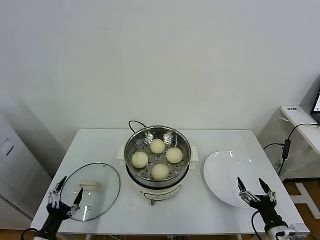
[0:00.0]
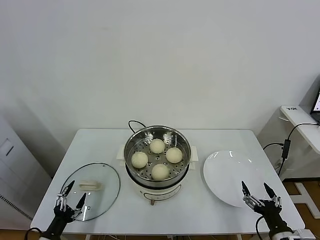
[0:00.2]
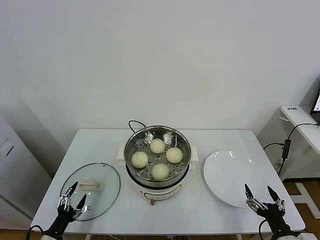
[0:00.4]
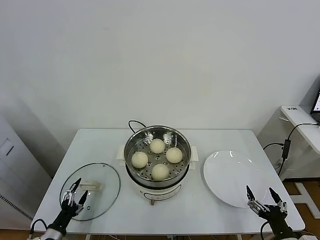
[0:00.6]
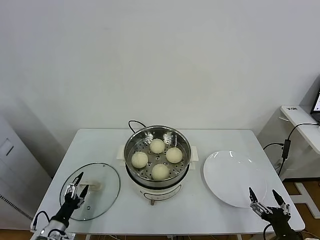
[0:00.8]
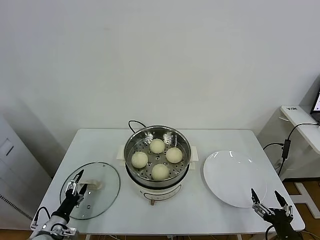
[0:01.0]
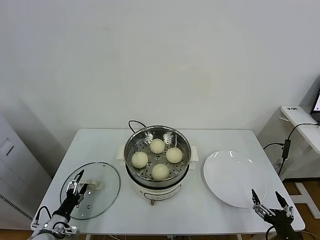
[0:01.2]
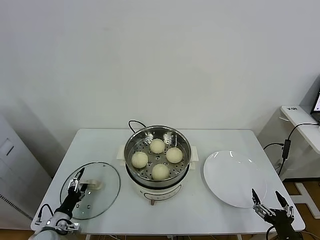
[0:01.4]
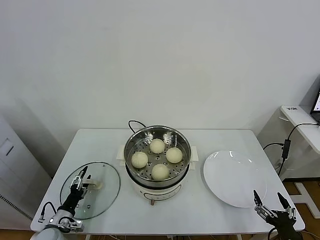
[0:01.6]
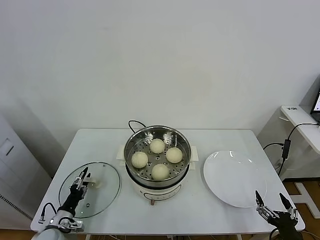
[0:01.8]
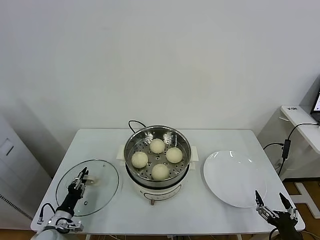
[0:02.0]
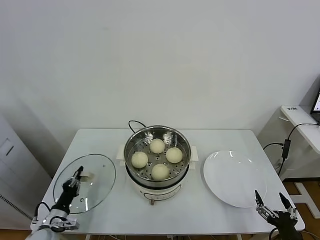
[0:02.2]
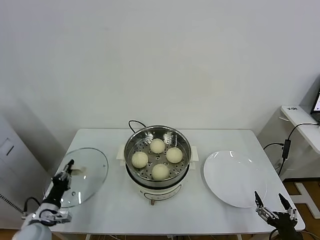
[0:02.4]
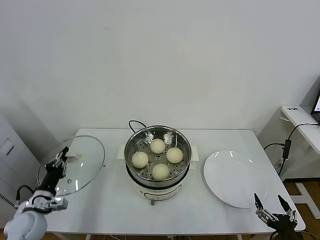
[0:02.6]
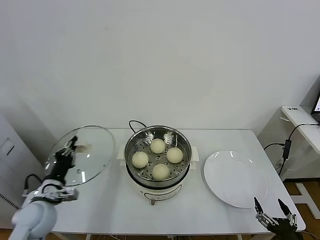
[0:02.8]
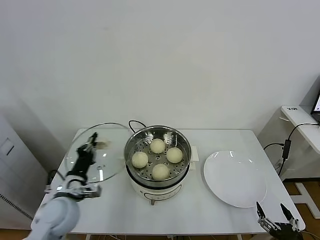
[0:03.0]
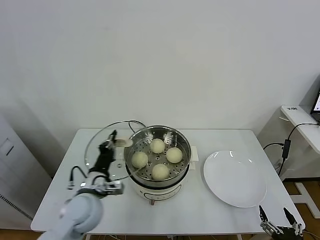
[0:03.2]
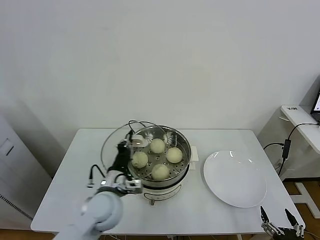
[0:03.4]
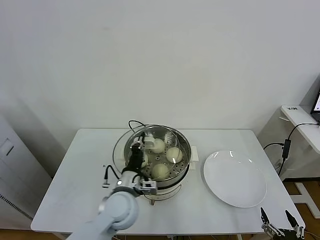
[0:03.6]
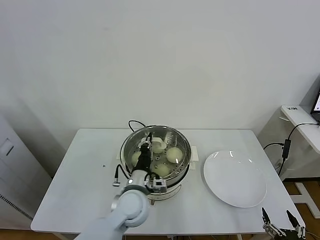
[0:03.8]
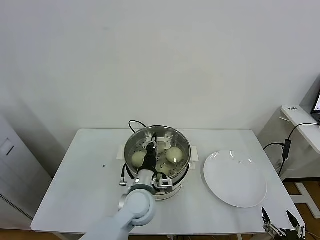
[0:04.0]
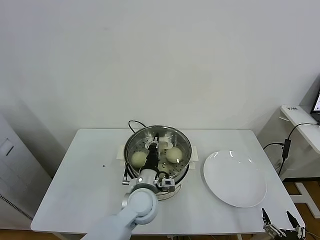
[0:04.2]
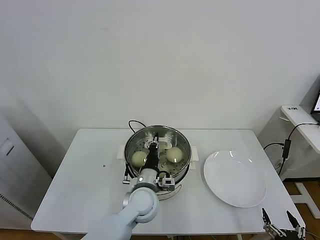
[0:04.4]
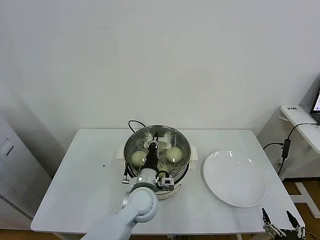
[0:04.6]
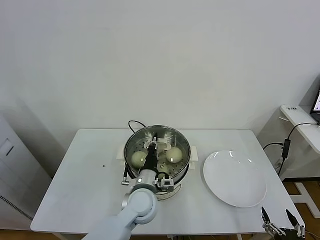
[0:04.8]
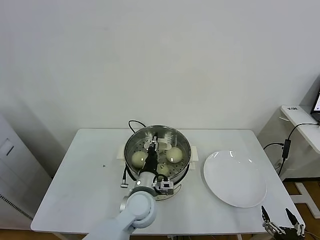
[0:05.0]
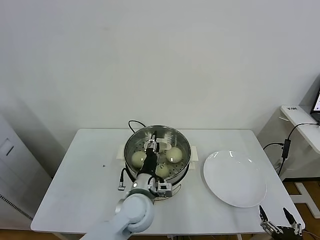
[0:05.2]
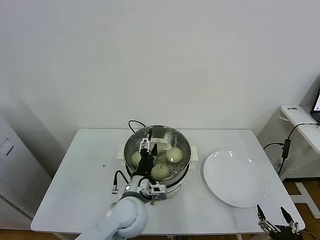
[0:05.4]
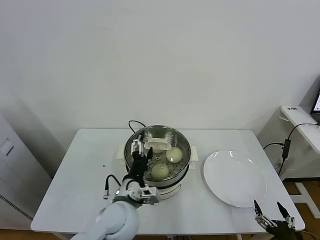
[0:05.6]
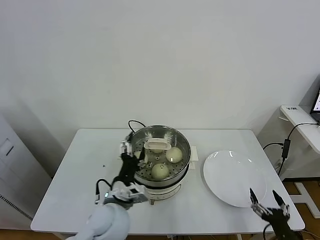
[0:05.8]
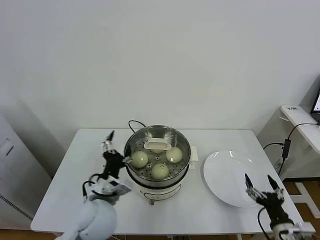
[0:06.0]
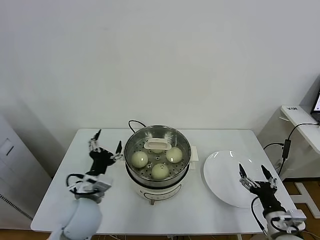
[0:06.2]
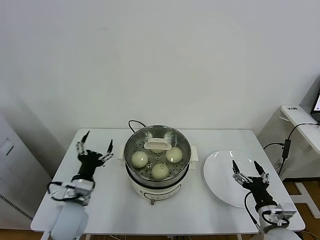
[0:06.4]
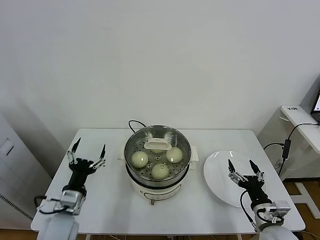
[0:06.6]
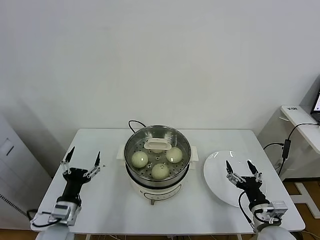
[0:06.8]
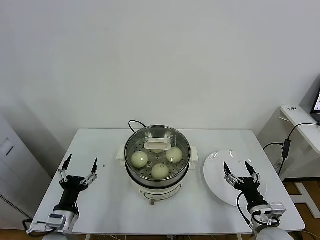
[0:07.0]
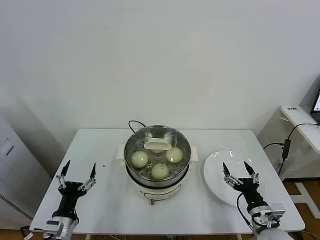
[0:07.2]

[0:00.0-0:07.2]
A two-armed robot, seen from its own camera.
Task of the whole recording: take steamed baozi put them in steamer.
Step, 0:00.0 to 0:02.2: Grasp the pot lid with left gripper.
Step, 0:02.4 to 0:05.0: Place the pot lid on the steamer with left gripper.
0:00.0 to 0:01.4: The right gripper changes place by some 5 cm. The left gripper heads forward and downward, covering roughly 15 cm.
0:01.4 to 0:02.8: The left gripper heads upward, covering some 15 cm, and closes its fingers.
0:02.8 to 0:04.4: The left gripper shifts roughly 30 cm to the right.
0:04.4 to 0:05.8: The left gripper is displaced backward and to the left by approximately 10 cm, and opens its fingers.
0:05.8 to 0:07.2: The right gripper is displaced forward and to the left by roughly 10 cm; the left gripper travels to the left and downward by about 20 cm.
